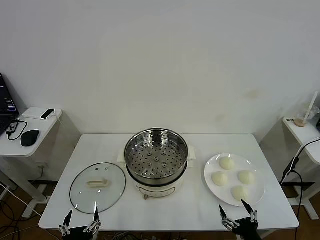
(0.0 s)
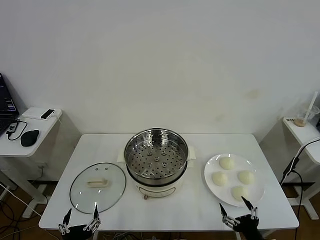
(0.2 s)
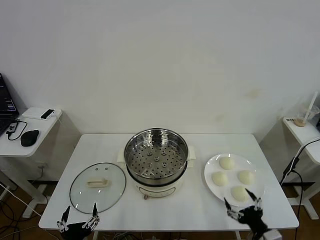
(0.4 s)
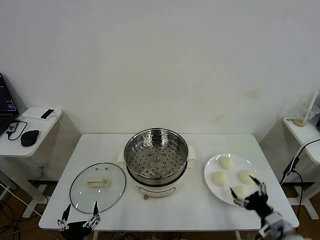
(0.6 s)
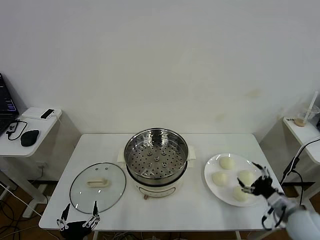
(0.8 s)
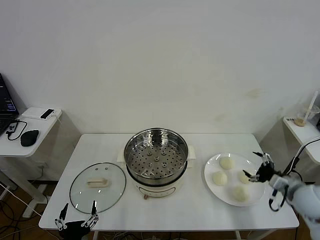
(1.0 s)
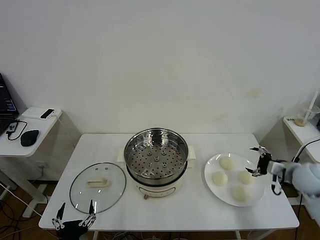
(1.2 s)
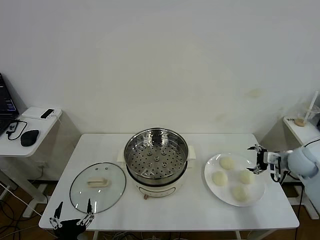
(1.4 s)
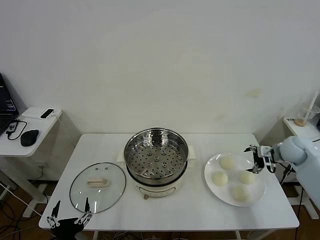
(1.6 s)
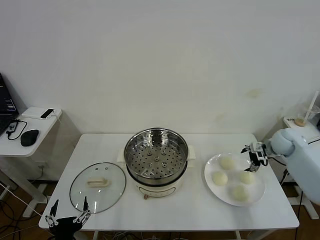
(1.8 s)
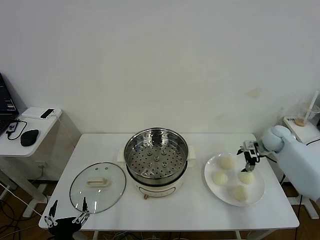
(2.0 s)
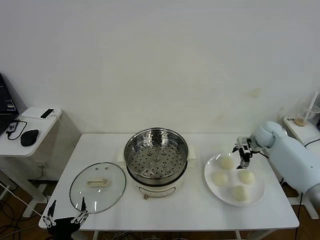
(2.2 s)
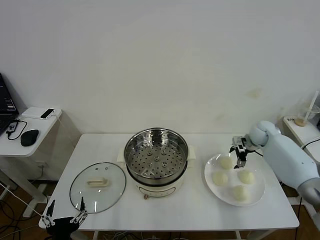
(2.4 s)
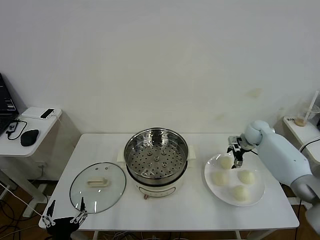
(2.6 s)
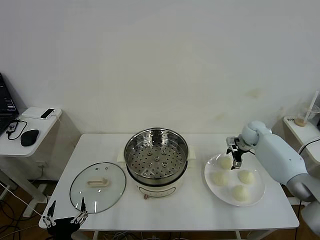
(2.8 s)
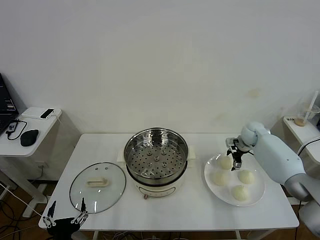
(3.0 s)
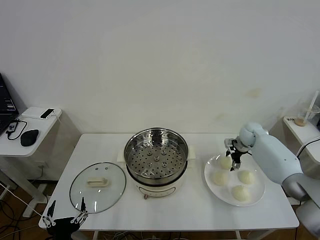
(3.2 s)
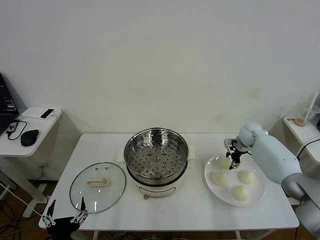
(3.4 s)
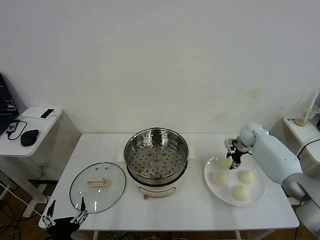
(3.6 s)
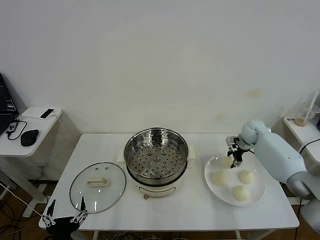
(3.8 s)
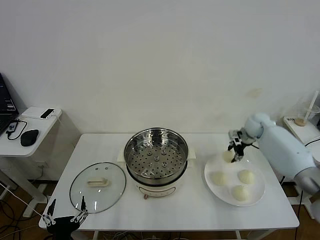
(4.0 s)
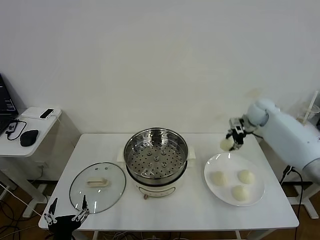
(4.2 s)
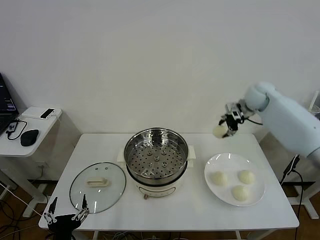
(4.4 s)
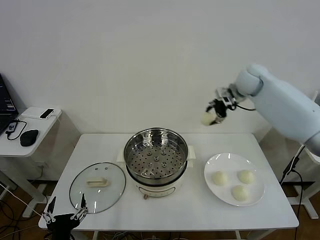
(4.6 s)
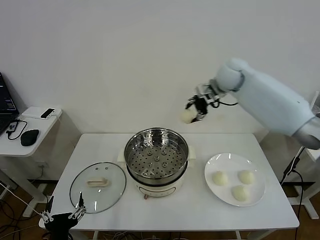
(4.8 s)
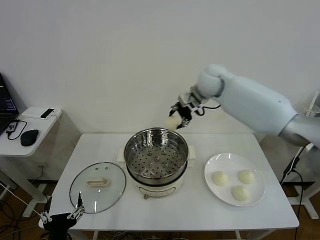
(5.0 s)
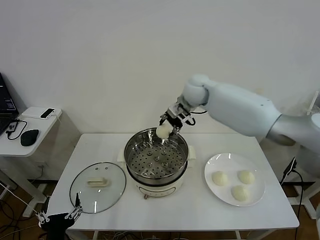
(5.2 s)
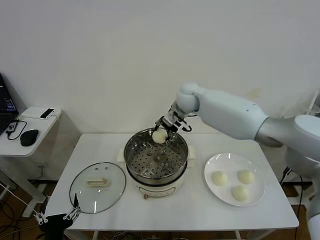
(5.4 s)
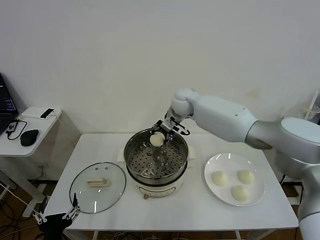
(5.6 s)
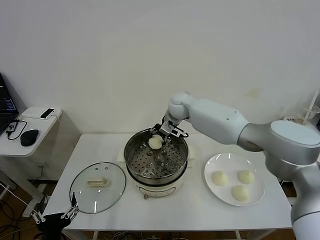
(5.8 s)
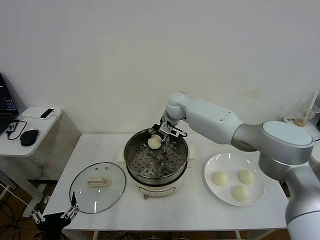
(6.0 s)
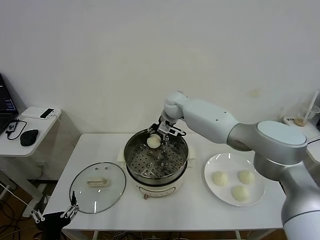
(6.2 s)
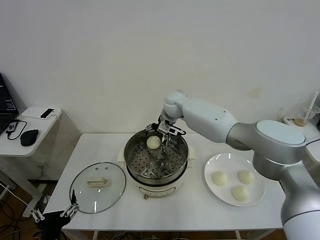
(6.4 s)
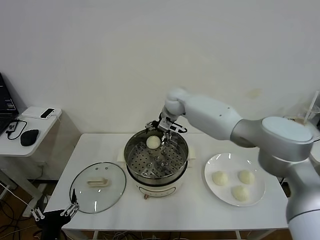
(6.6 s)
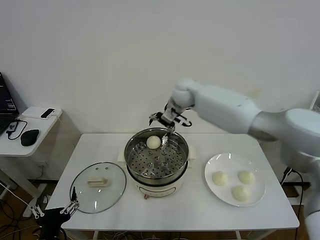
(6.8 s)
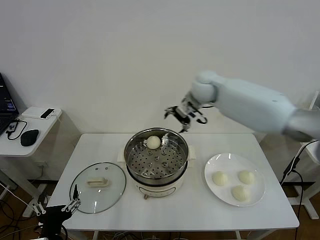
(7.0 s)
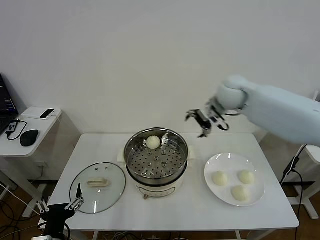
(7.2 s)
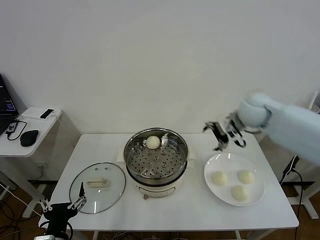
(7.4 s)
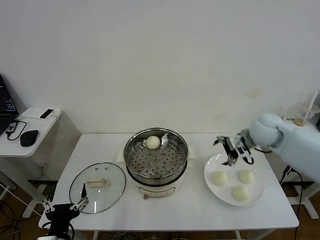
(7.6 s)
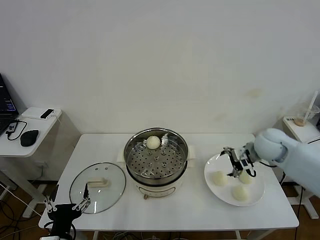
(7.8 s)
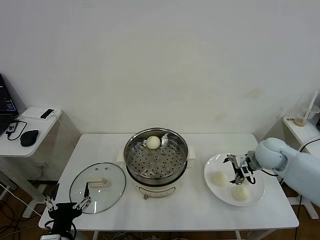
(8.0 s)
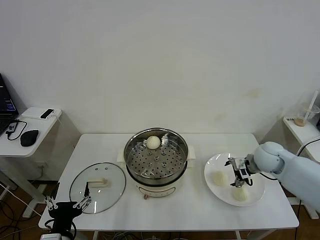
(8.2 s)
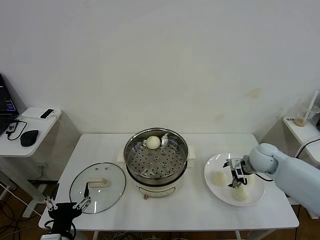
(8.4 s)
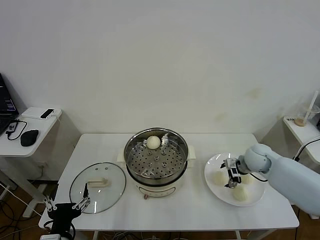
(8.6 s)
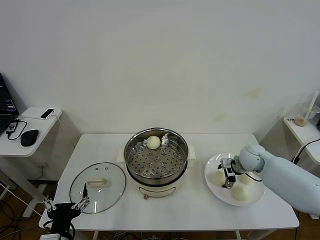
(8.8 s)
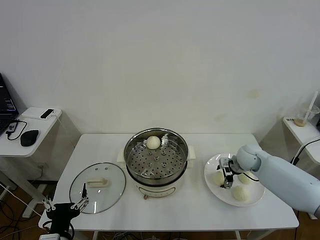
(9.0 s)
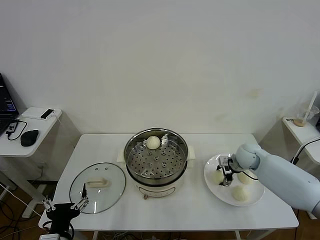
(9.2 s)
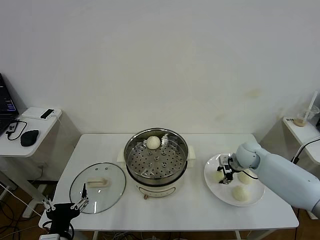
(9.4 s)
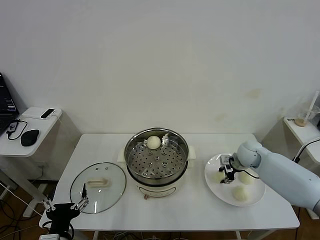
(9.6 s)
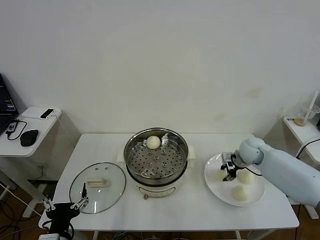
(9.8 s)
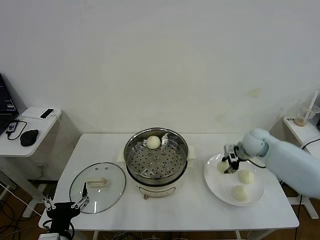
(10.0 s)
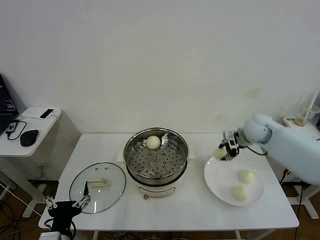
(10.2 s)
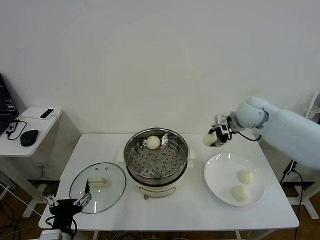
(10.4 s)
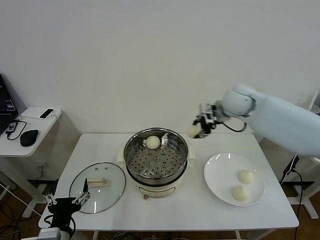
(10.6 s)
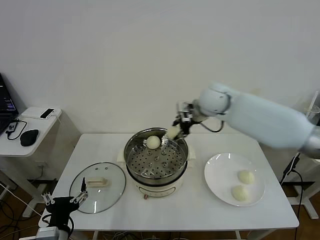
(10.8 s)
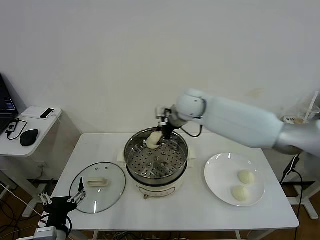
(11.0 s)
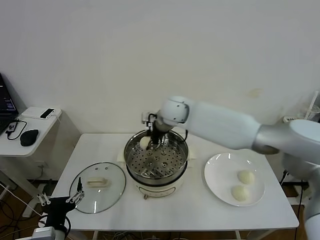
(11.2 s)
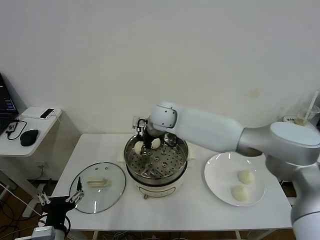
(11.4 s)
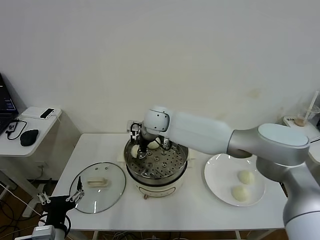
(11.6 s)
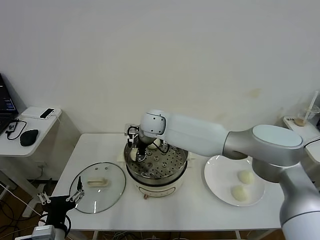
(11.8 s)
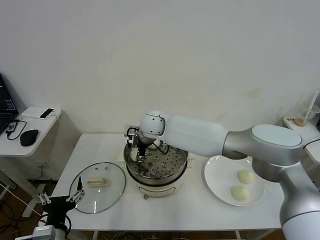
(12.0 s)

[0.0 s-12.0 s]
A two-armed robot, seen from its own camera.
Task of the whole recording: take steamed baozi put them in steamer then cover it.
Step, 0.0 to 3.4 s: Grasp the baozi in the plate with right gripper.
Step, 3.6 to 6.6 s: Place the baozi on the steamer with right gripper.
Step, 6.8 to 9.4 s: Grasp the baozi in the plate with right gripper.
1.6 to 3.0 s: The right gripper heads forward and to the left, covering some 10 cm.
3.0 to 4.4 s: The right gripper is displaced upward by some 20 cm, and closes its fingers.
4.4 to 6.0 s: The right gripper shifts approximately 25 cm to the left.
6.0 to 7.6 s: The right gripper goes roughly 30 cm to the right and backward, and opens up.
7.6 to 9.0 s: The right gripper moves downward, about 15 cm.
9.0 to 10.4 s: The right gripper travels upward by some 20 cm, and closes its fingers.
10.4 to 12.0 s: The right gripper heads to the left, covering roughly 30 cm, and opens.

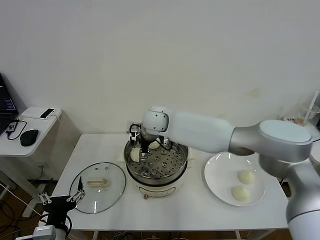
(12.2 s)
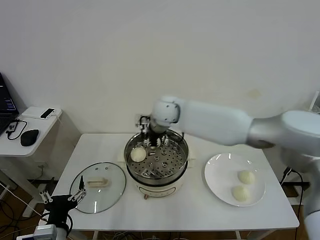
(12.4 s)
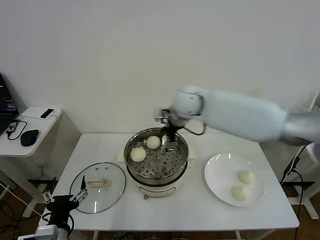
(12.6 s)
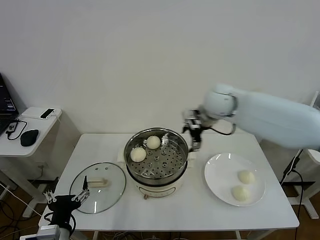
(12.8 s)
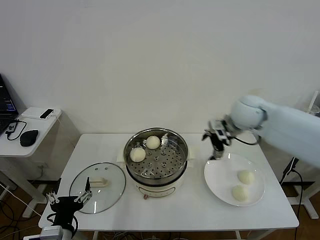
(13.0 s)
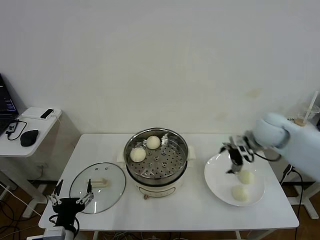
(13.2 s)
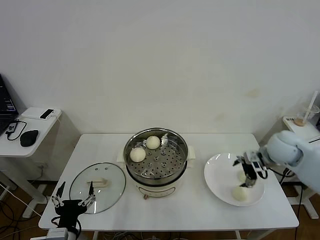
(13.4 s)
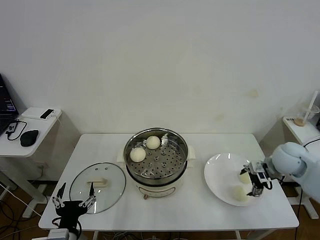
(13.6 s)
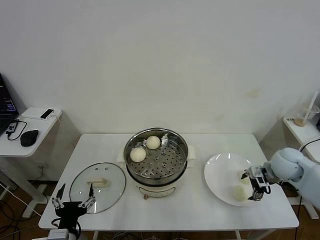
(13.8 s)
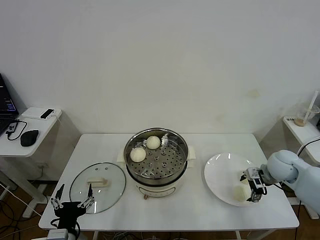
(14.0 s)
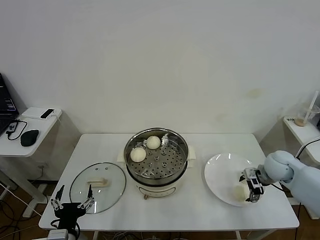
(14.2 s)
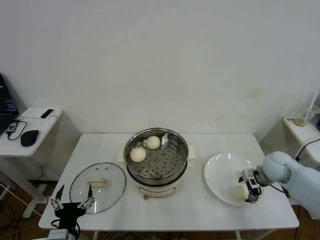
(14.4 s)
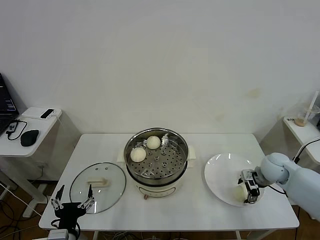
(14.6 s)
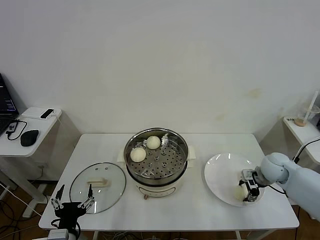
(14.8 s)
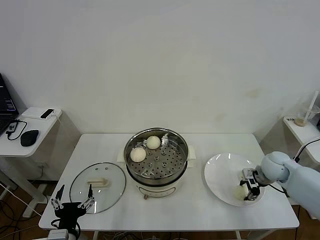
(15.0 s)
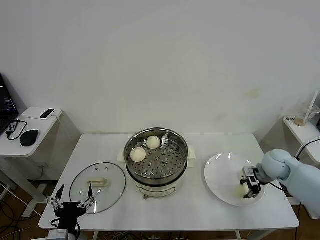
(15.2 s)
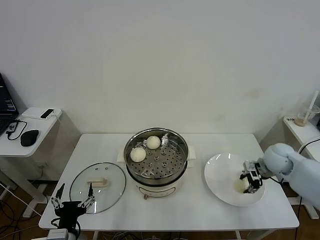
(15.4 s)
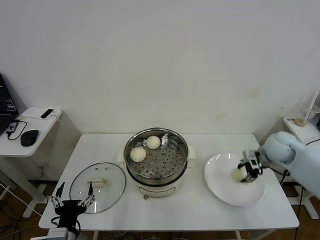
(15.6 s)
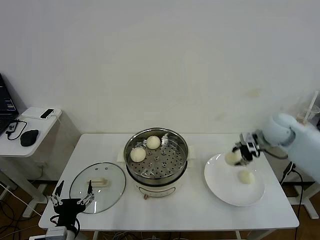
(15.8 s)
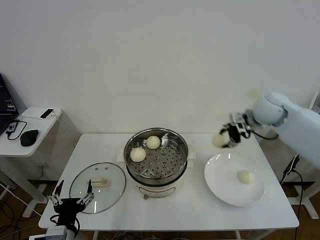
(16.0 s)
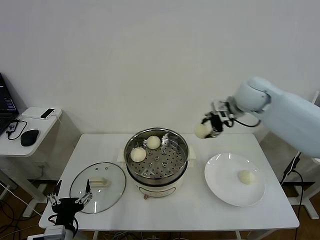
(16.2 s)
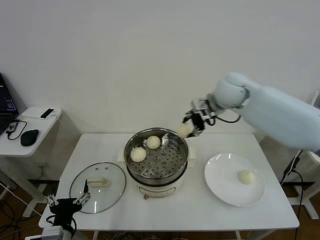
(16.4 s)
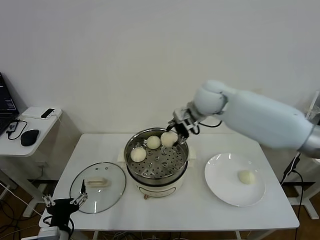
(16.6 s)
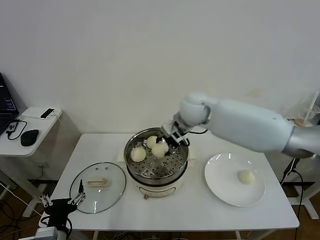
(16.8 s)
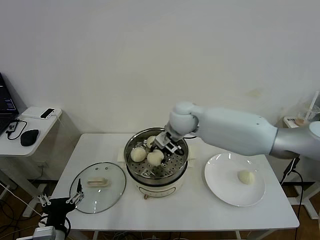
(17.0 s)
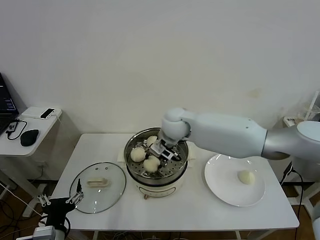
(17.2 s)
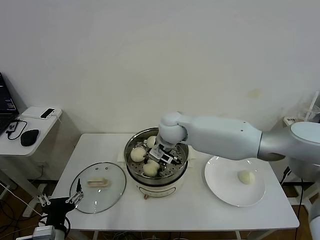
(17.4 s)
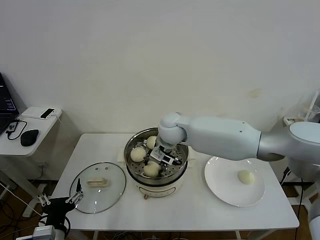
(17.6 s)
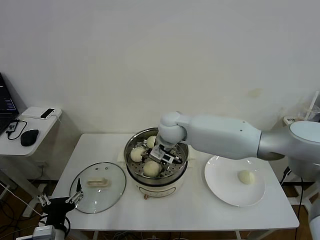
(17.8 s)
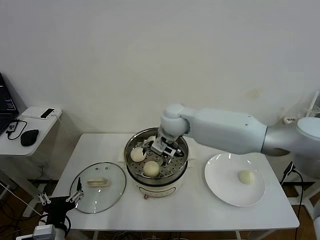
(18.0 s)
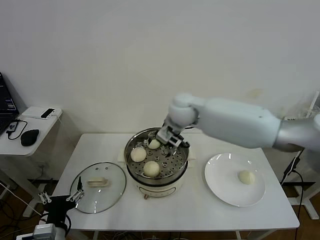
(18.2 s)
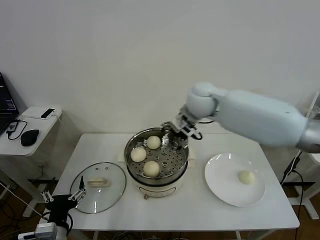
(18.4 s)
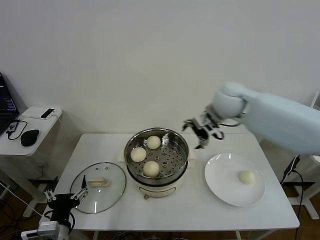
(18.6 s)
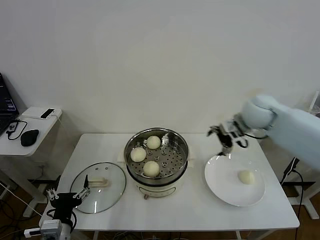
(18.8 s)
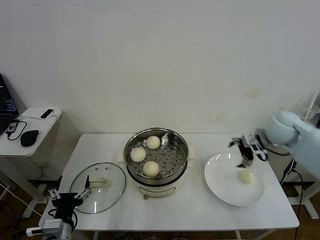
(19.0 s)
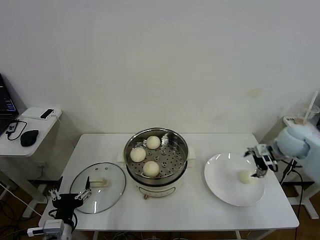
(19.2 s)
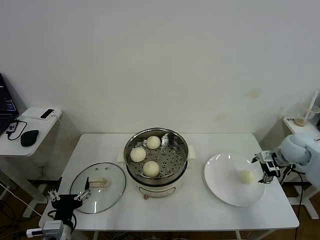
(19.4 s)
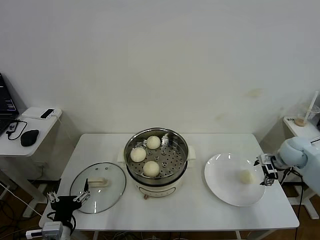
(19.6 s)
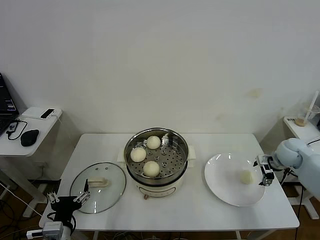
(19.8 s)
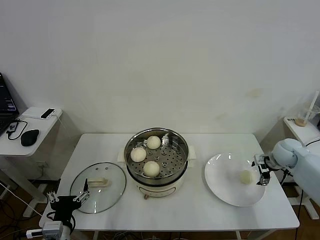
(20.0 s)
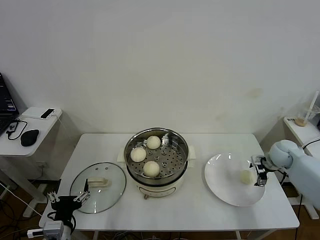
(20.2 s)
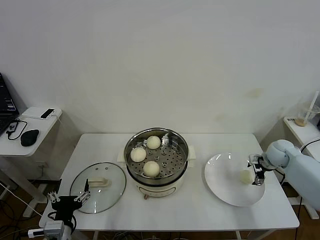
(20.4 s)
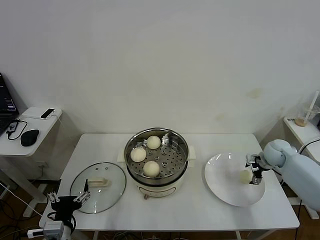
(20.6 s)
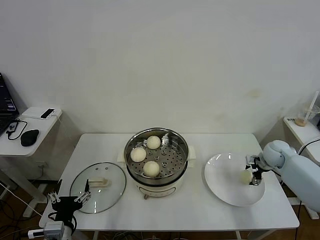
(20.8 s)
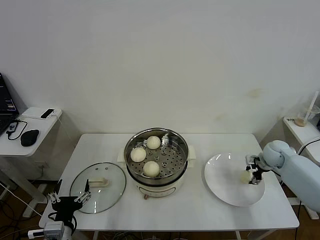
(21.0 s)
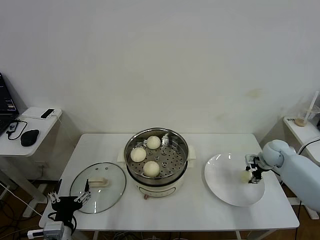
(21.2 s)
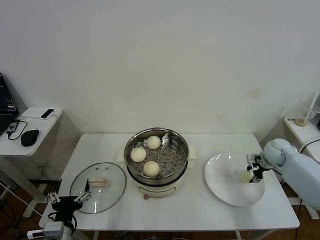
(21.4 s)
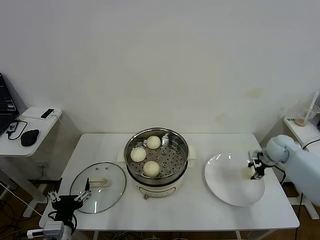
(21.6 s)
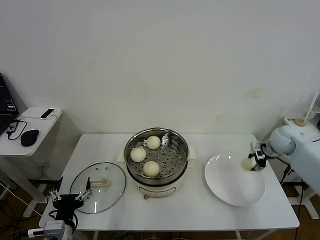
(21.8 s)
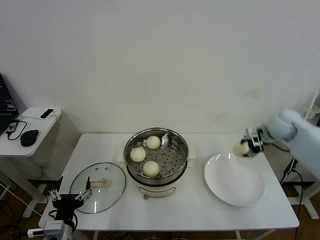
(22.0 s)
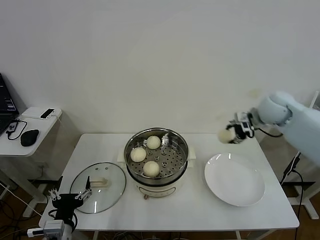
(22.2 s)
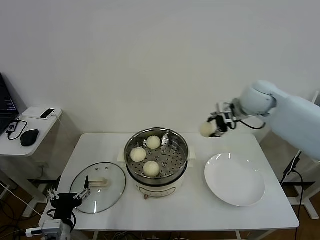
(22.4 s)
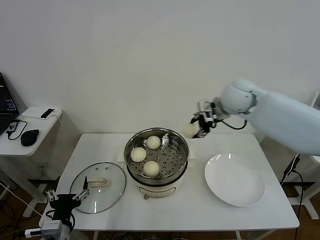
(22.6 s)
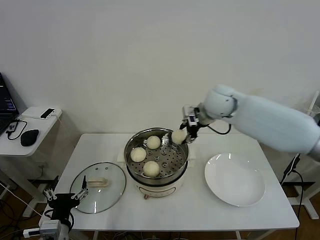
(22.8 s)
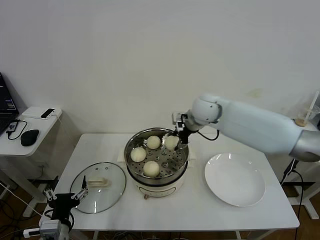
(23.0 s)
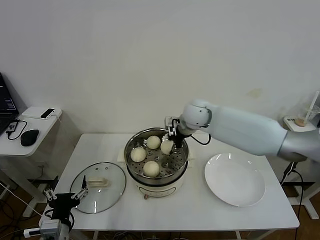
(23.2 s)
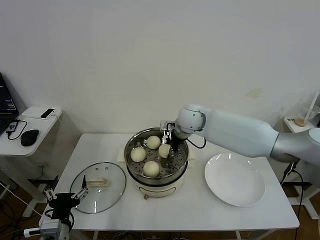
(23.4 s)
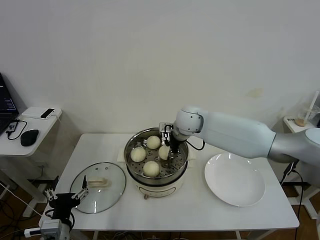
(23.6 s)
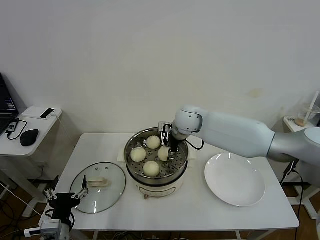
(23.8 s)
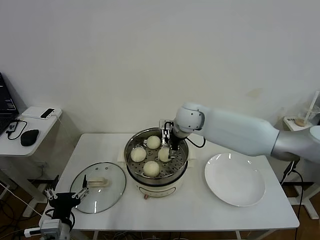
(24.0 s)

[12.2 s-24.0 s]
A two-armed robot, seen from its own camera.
Task of the whole recording: take steamed baozi put them in steamer then cover it.
Step, 12.4 to 15.2 s: Grasp the baozi in the plate with right gripper.
Step, 15.4 to 18.0 s: Place the baozi on the steamer with right gripper.
Step, 18.2 to 21.2 s: Grasp the baozi in the plate with right gripper.
12.2 to 13.6 s: The right gripper is displaced to the right by some 40 cm.
13.6 to 15.2 s: The right gripper moves some 5 cm, and closes.
15.2 to 16.6 s: The right gripper is displaced to the left and upward by approximately 35 cm.
16.6 to 18.2 s: The right gripper travels to the left by approximately 5 cm, and opens its fingers.
18.2 to 19.6 s: The right gripper moves to the right, about 40 cm.
19.6 to 21.0 s: The right gripper goes approximately 5 cm downward, and closes its fingers.
21.0 to 22.6 s: The right gripper moves upward and to the left, approximately 30 cm.
22.6 to 24.0 s: The right gripper goes roughly 15 cm to the left and downward, and opens its fingers.
